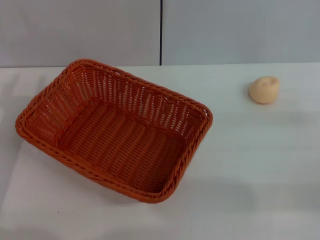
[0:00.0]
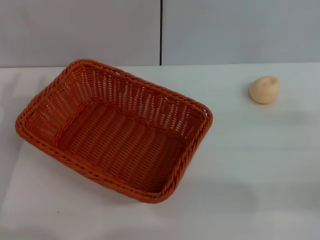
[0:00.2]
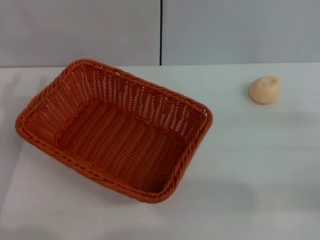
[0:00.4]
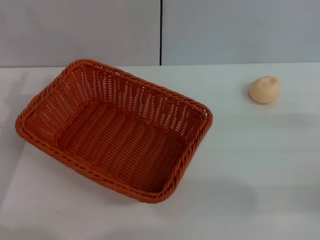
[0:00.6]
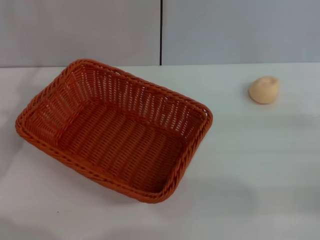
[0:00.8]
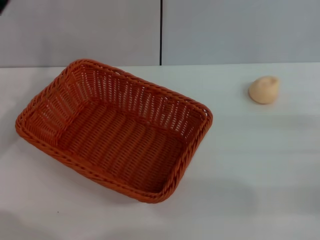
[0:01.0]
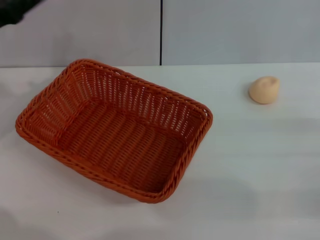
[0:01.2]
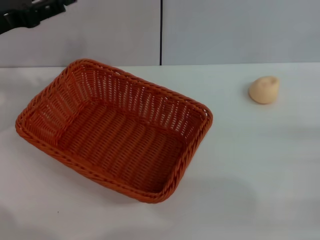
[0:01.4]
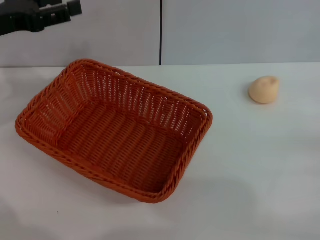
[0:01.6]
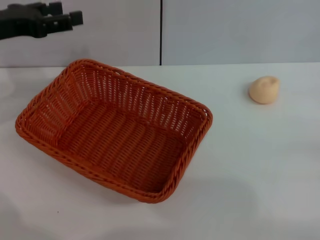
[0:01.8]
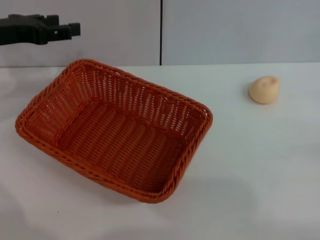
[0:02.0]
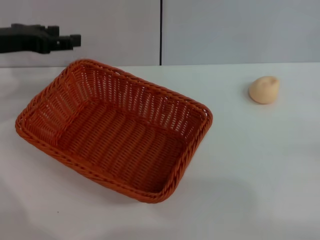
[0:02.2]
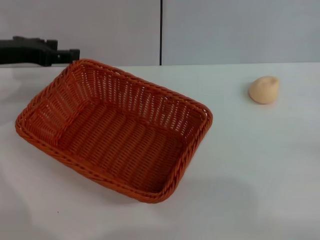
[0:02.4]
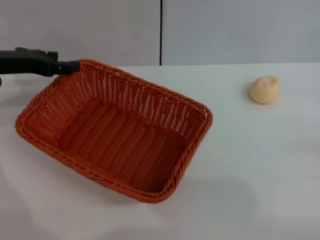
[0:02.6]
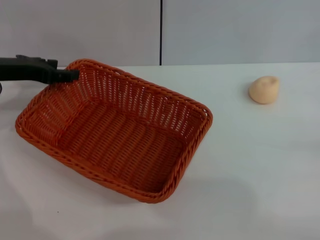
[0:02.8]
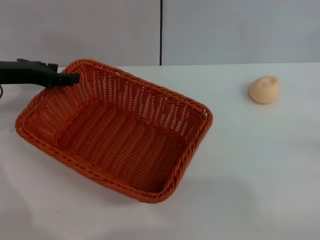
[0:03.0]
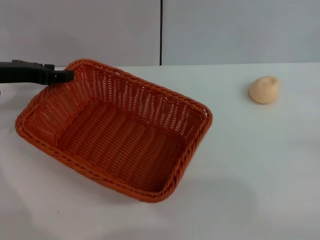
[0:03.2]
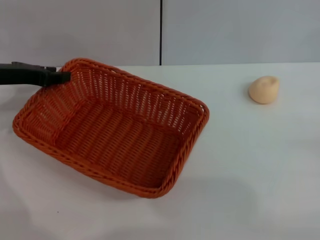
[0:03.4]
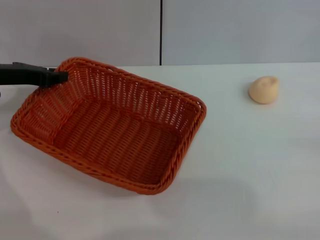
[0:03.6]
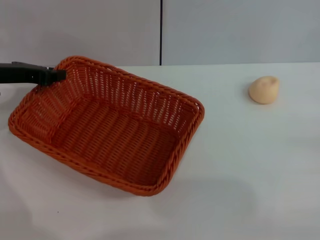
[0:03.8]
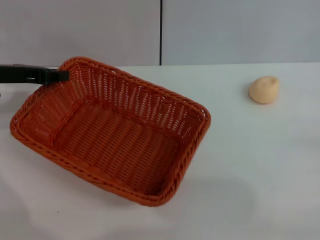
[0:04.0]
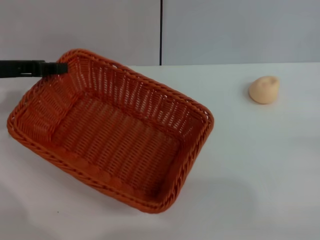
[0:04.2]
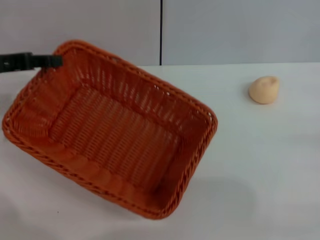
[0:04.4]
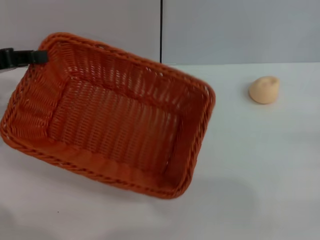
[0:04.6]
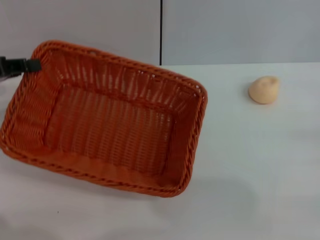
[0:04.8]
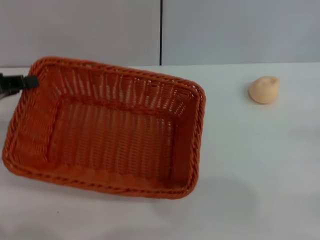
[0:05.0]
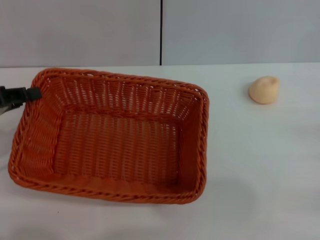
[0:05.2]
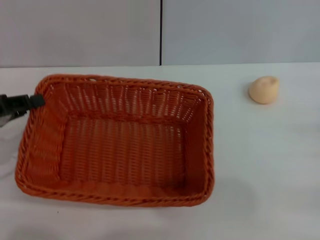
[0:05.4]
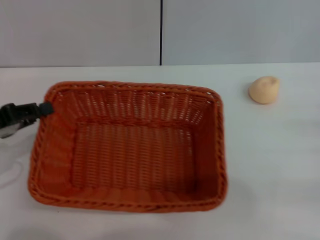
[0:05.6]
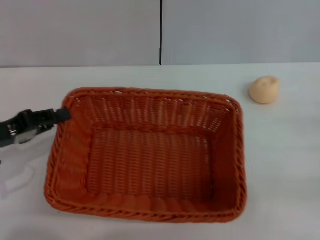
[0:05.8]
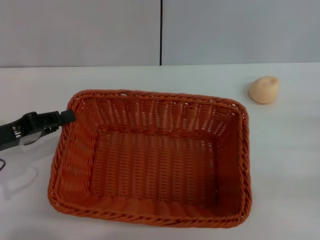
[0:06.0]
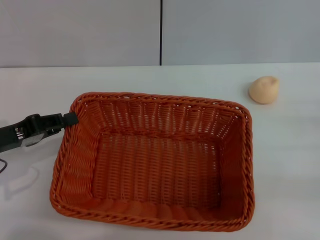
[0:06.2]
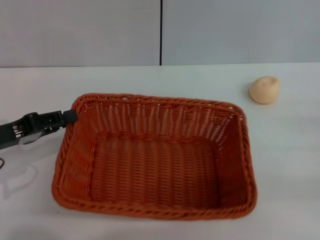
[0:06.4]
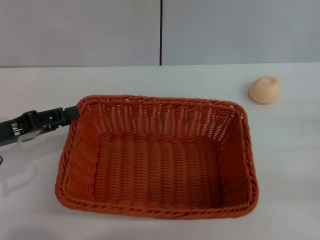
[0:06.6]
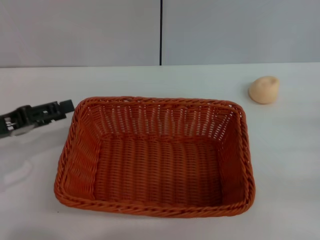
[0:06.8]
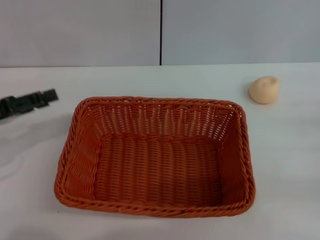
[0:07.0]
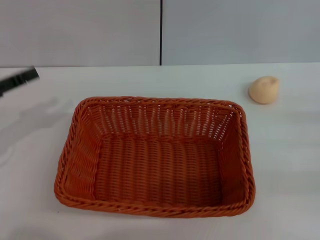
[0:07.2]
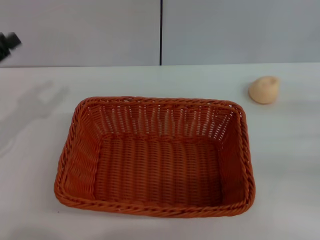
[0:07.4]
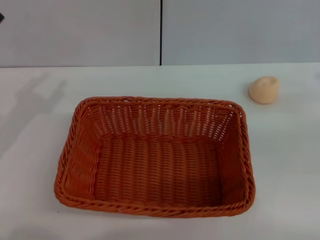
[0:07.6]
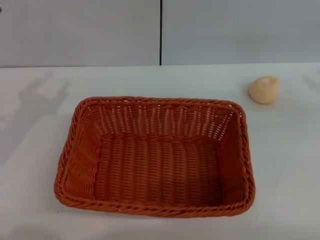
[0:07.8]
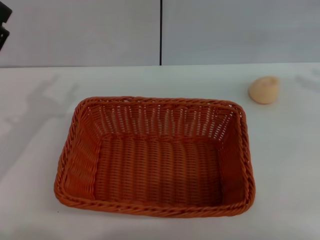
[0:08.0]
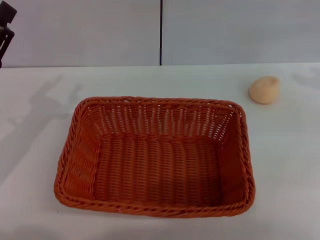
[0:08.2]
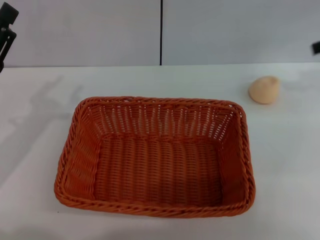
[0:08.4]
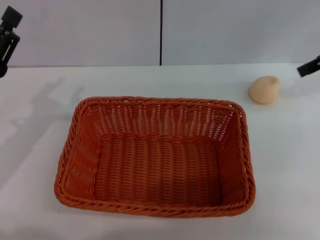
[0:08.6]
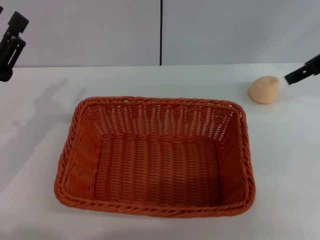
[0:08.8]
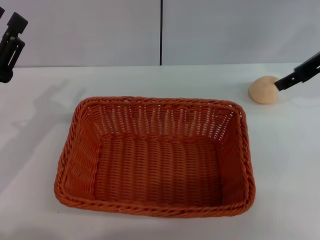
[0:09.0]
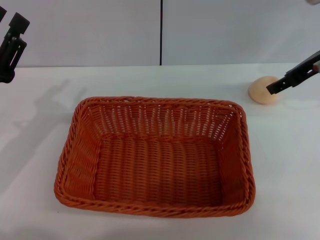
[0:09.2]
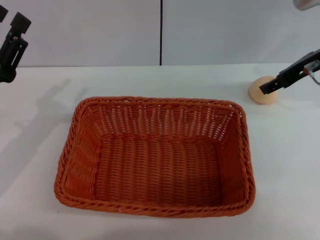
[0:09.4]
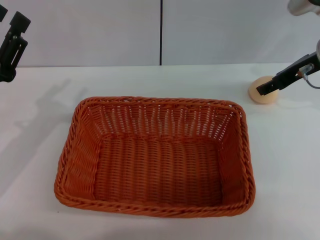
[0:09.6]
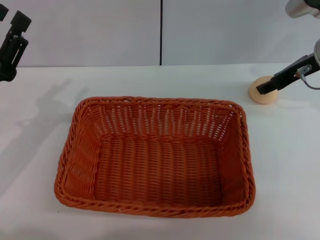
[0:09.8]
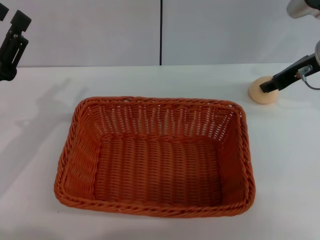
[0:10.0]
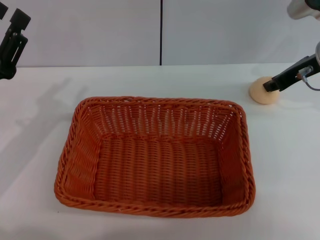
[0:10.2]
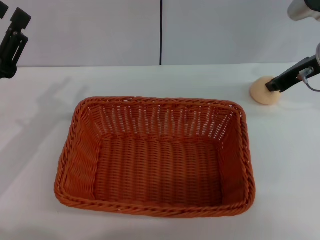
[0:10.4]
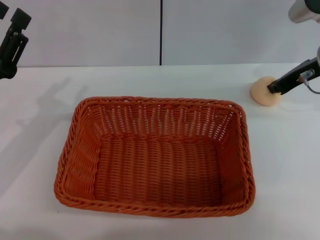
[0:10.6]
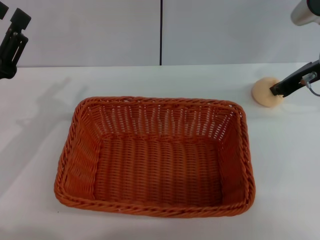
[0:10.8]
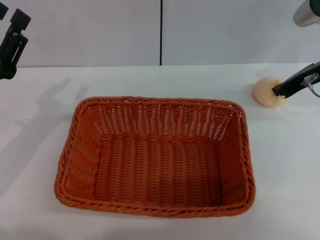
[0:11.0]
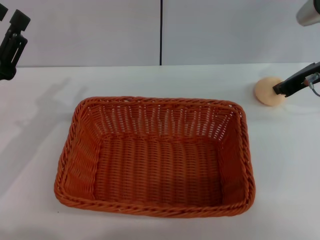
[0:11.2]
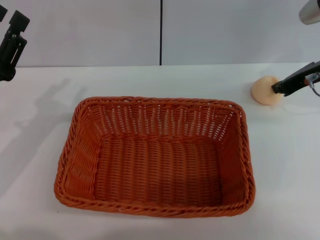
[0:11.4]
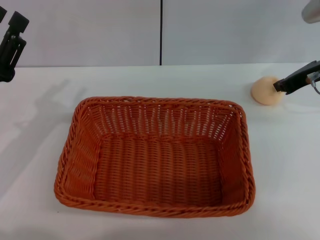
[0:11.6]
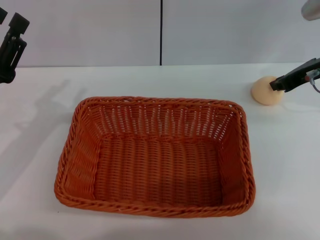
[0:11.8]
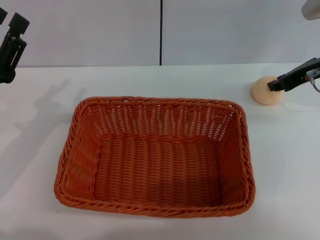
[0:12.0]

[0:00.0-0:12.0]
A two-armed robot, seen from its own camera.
Step, 0:00.0 to 0:07.0: Move the basket to the center of view with the left gripper.
0:00.0 to 0:01.6: The left gripper goes some 15 cm upward and forward.
0:01.6 to 0:03.0: The left gripper shifts approximately 5 cm downward.
0:03.0 to 0:04.4: The left gripper changes place by approximately 5 cm, and closes its fingers.
0:04.4 to 0:06.0: The left gripper heads backward and downward, covering about 10 cm.
0:06.0 to 0:07.6: The left gripper opens up; the right gripper moves upward, some 10 cm.
0:07.6 to 0:09.0: The right gripper shifts about 20 cm to the left, forward and upward.
0:09.0 to 0:10.4: The right gripper changes place by some 5 cm, and closes its fingers.
0:10.4 to 0:12.0: The grippers move only a little.

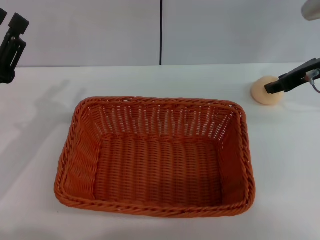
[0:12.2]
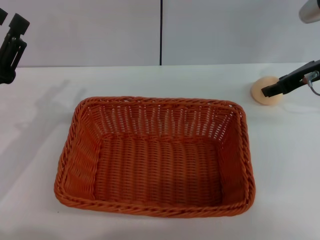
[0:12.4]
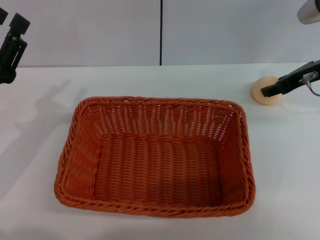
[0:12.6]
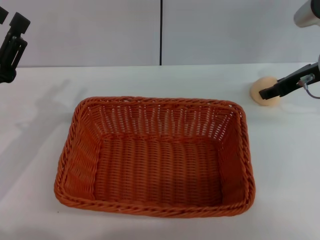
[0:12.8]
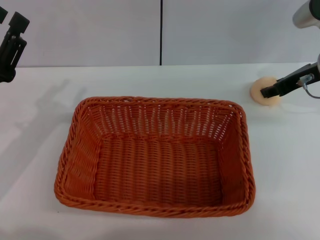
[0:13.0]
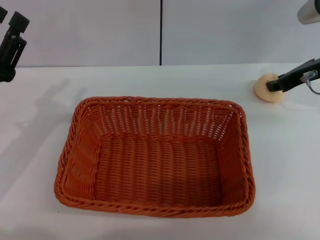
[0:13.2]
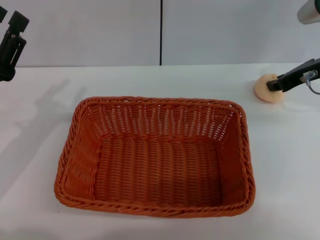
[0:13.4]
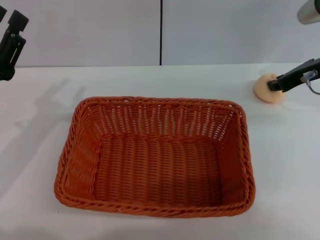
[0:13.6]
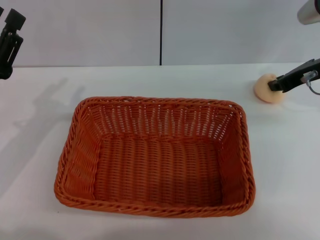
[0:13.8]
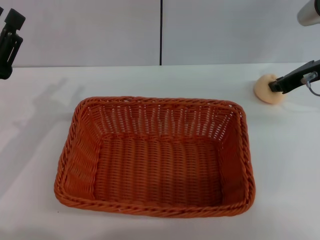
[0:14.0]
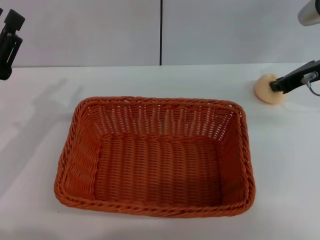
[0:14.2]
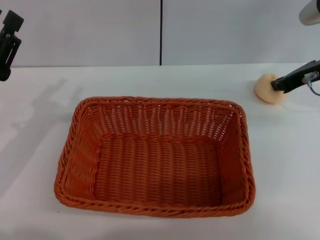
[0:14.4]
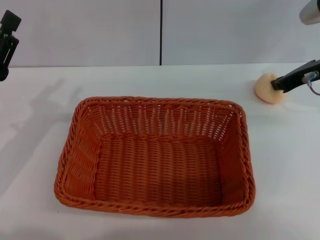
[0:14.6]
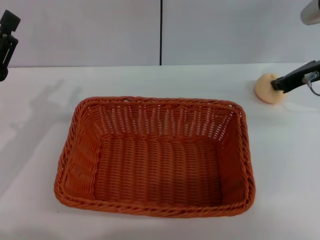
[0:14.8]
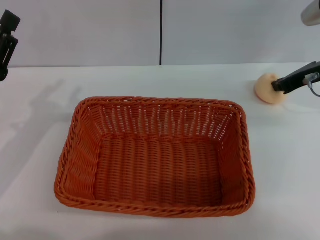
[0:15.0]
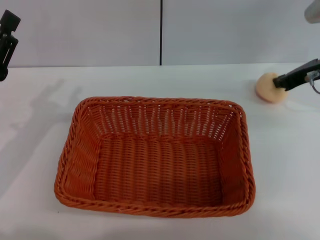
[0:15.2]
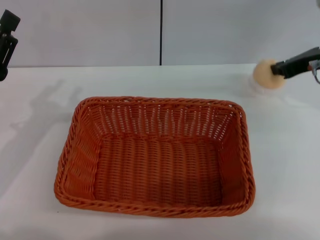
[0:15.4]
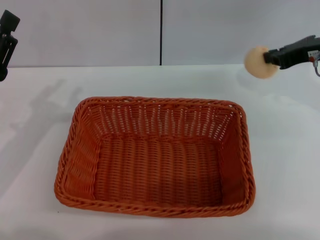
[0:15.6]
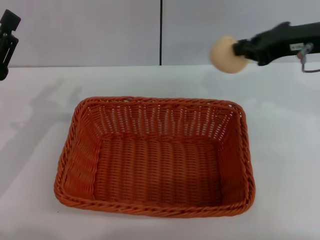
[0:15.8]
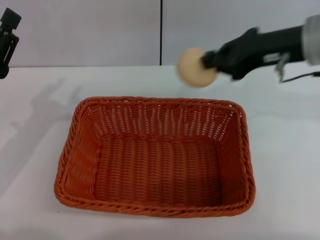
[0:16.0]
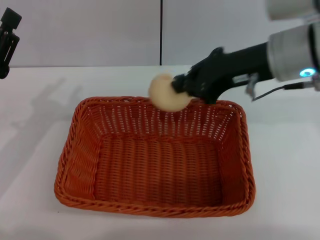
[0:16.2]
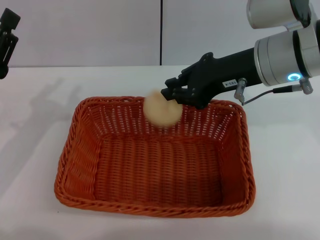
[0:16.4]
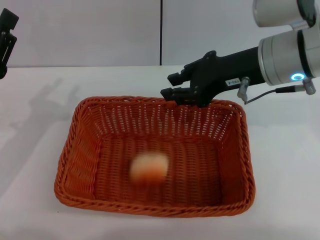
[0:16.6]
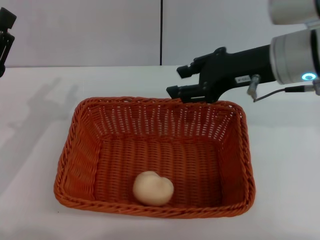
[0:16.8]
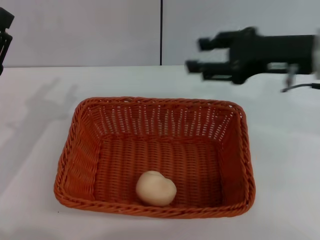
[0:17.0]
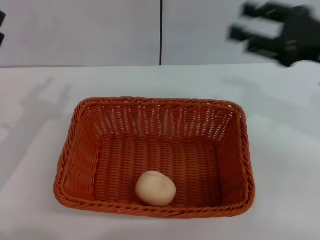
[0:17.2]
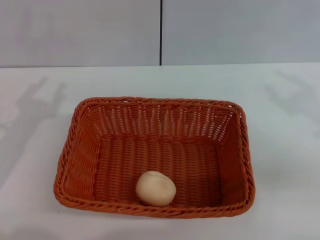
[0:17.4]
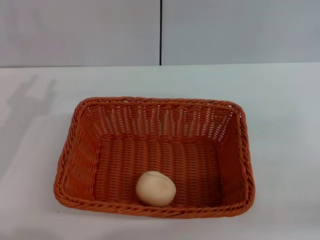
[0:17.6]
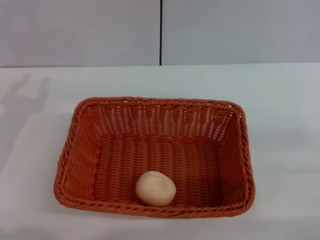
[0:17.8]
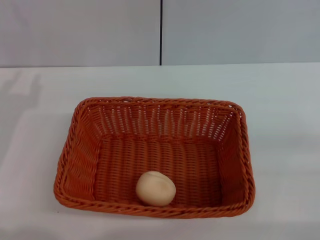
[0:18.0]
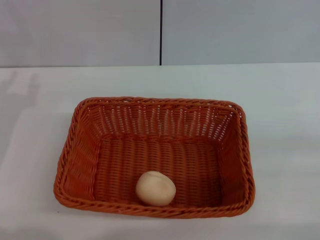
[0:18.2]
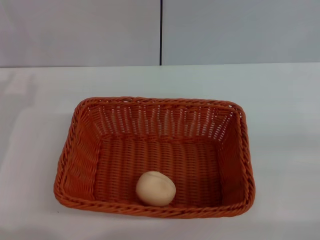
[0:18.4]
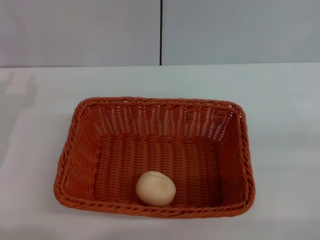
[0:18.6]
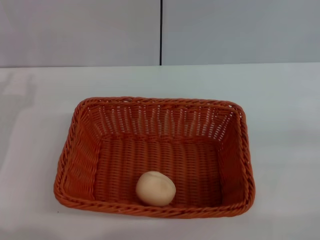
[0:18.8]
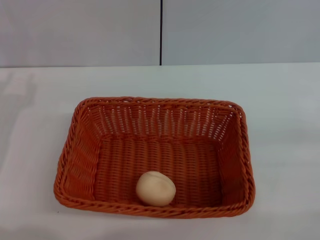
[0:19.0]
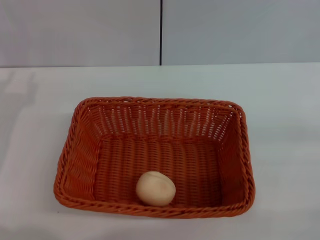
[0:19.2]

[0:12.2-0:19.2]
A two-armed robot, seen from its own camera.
Step, 0:12.2 to 0:15.6: Pick up the egg yolk pastry with the right gripper.
Step, 0:15.8 to 0:16.6: Place the egg yolk pastry into the basket with the right gripper.
0:12.2 to 0:13.6: The right gripper opens, then closes again.
0:13.6 to 0:15.0: Neither gripper changes place.
0:15.0 to 0:16.4: The right gripper goes some 15 cm to the left, upward and backward.
0:16.4 to 0:17.8: The right gripper is displaced to the right, backward and downward by about 30 cm, and opens its fingers.

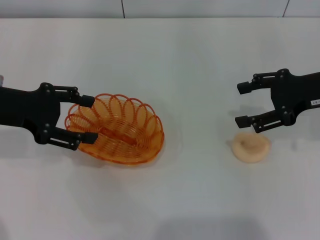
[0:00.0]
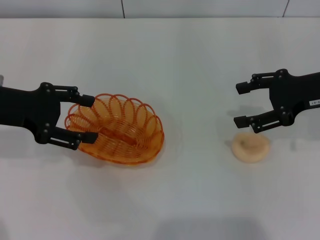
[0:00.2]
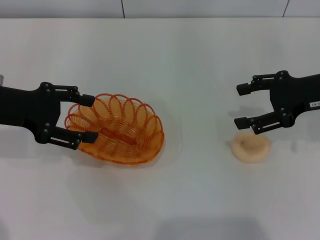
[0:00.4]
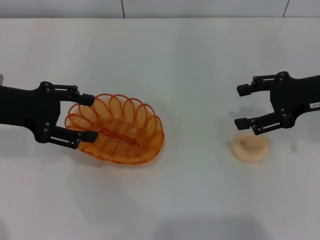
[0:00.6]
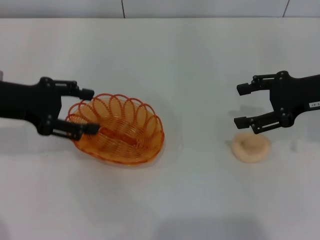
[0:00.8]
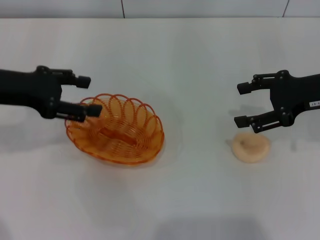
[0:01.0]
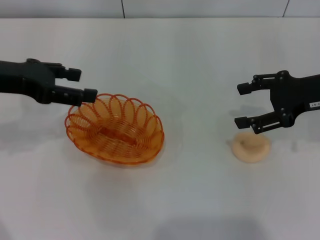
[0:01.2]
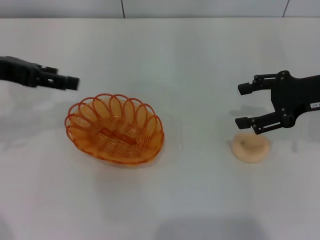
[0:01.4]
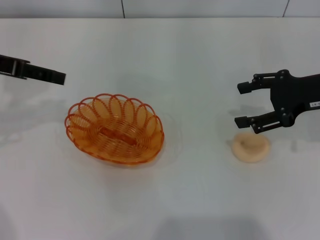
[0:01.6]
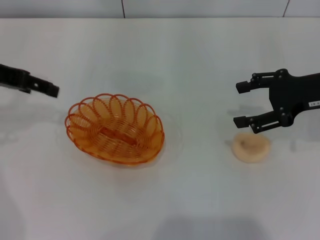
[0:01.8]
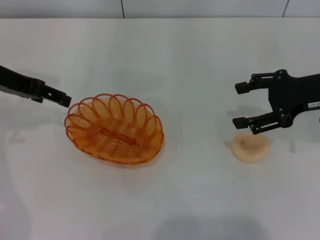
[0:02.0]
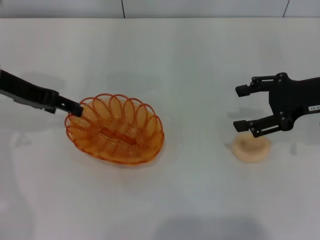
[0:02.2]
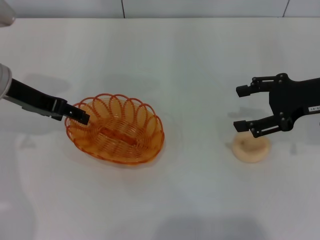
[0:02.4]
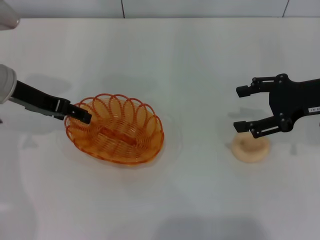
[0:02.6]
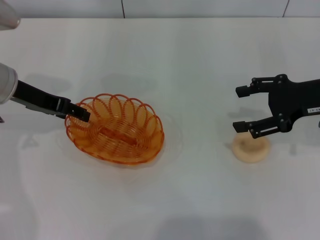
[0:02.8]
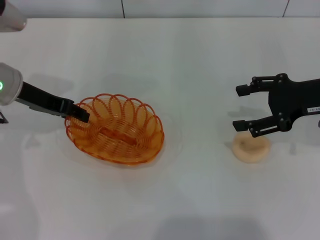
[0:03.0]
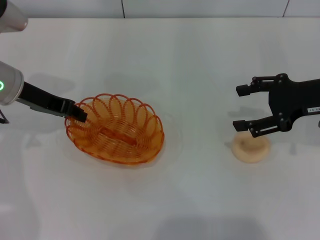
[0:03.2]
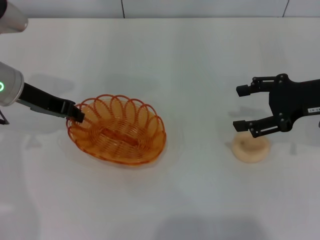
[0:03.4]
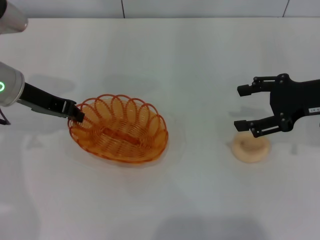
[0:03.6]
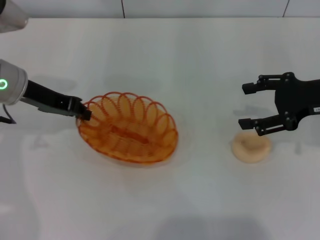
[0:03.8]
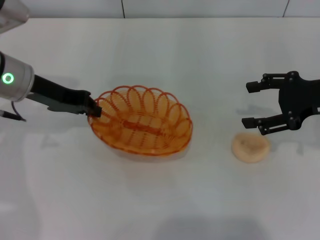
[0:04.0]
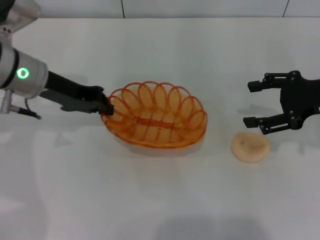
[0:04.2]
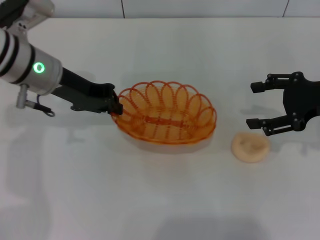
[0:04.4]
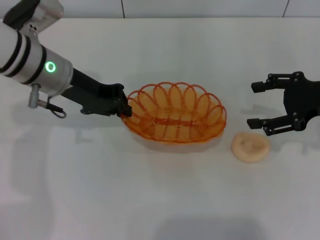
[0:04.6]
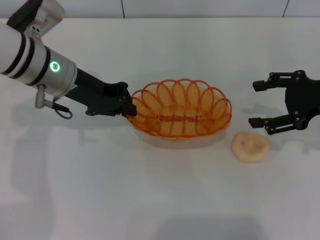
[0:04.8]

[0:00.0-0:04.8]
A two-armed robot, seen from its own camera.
Step, 0:00.0 to 0:03.6: Pick up the basket with the left gripper.
0:00.0 to 0:01.6: The left gripper is displaced upward by some 5 cm.
0:01.6 to 0:03.2: The left gripper goes some 10 cm downward and to the right, and closes.
0:03.2 to 0:04.8: The left gripper heads to the right, covering roughly 5 cm, and closes.
